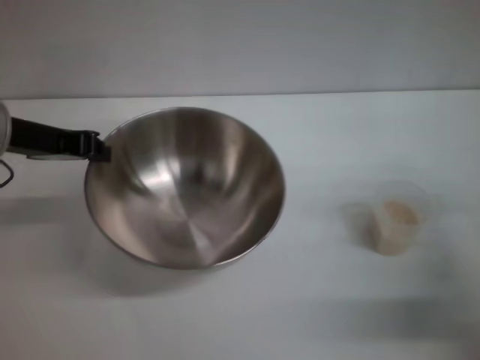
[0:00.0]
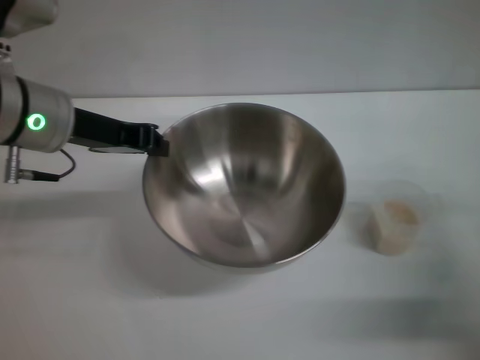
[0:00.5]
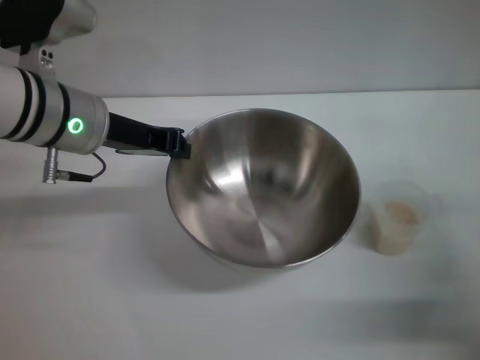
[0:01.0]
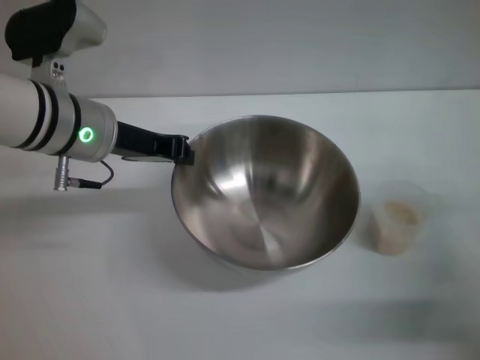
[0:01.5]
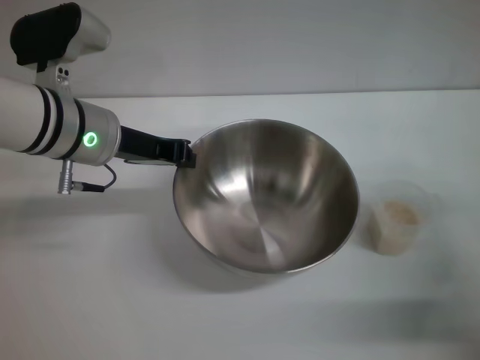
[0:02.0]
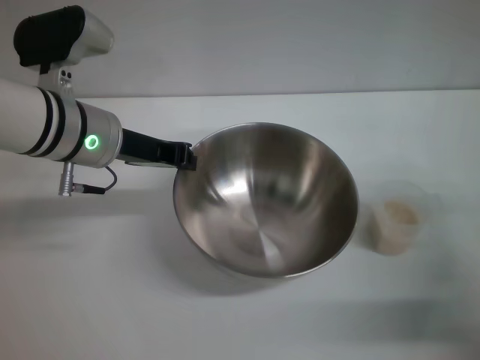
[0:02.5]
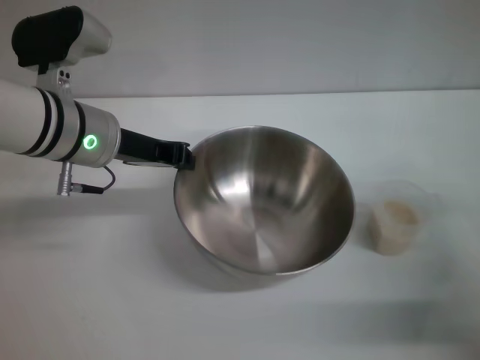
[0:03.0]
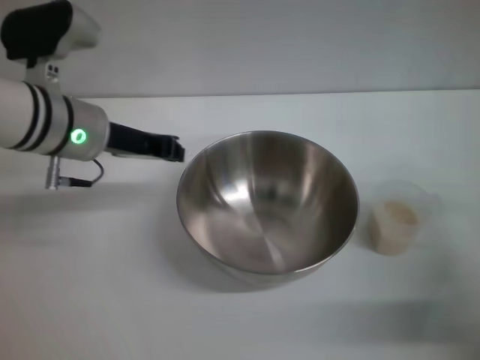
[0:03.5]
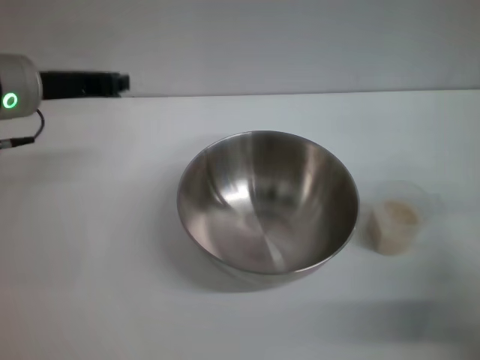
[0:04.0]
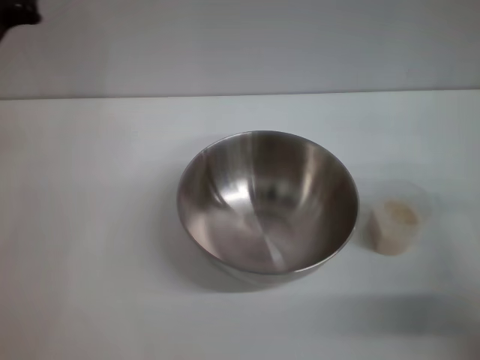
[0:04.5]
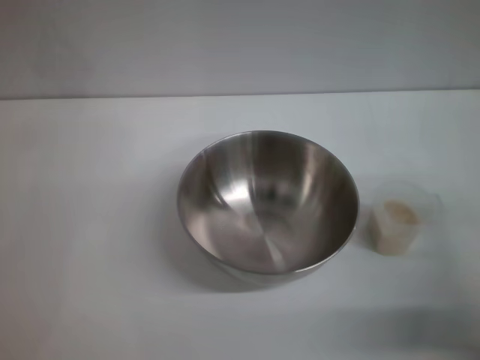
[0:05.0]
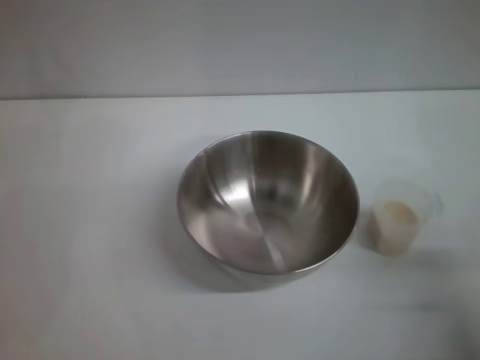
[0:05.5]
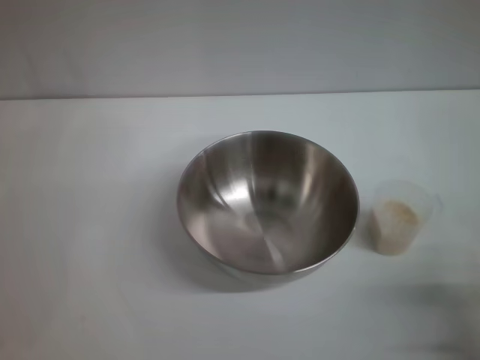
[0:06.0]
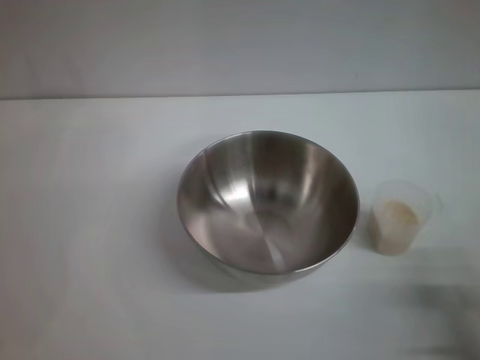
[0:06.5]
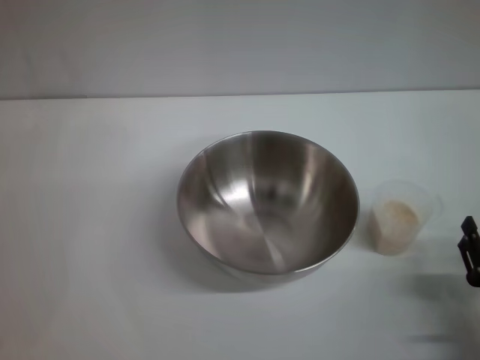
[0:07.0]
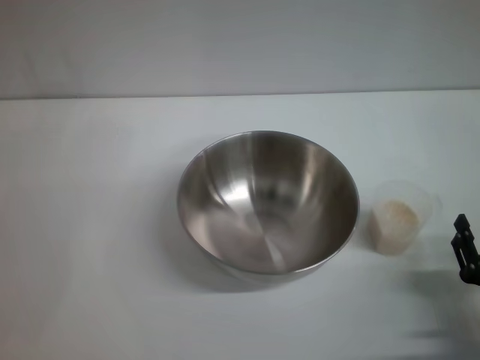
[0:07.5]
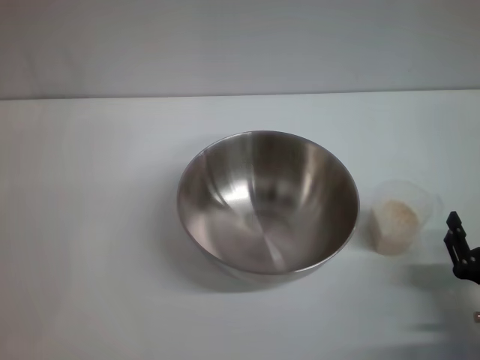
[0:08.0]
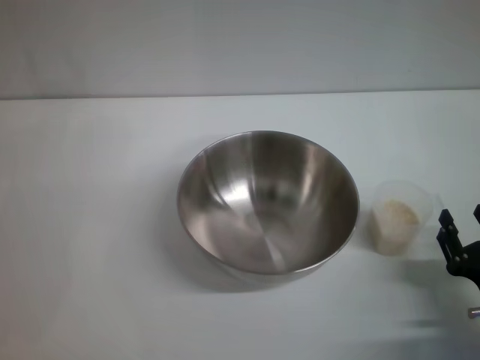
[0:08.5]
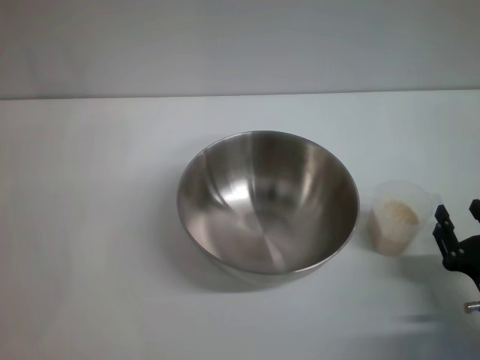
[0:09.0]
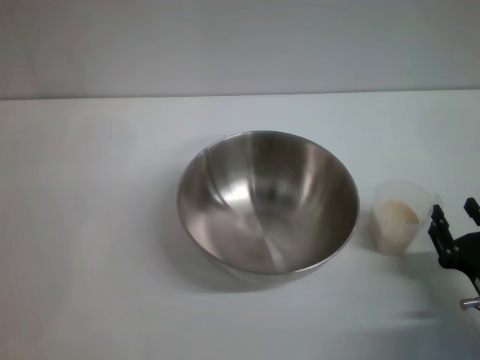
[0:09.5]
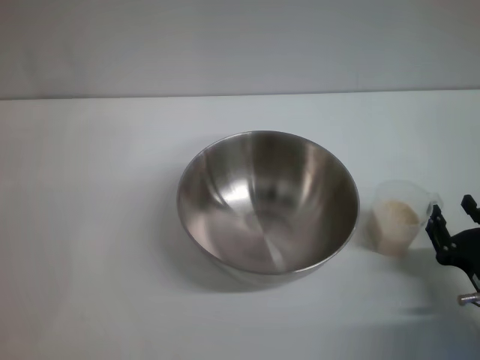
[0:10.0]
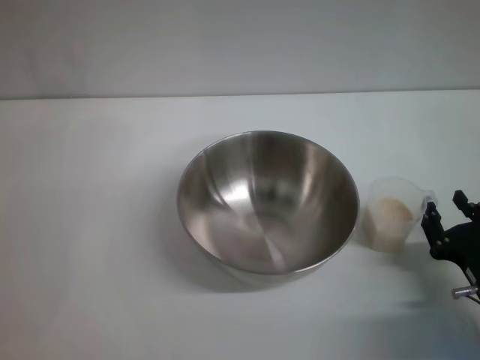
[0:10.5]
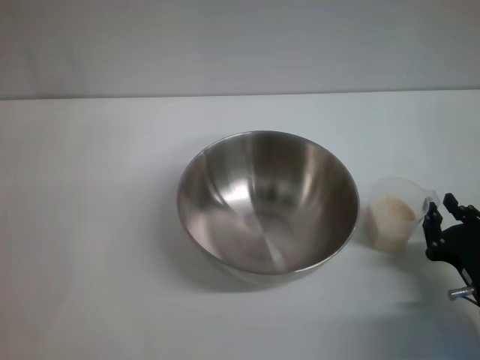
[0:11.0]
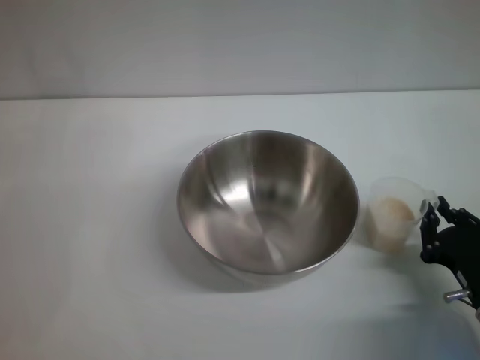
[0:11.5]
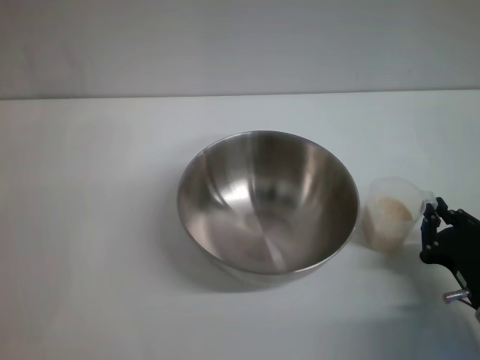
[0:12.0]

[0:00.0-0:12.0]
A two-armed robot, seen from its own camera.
Task of the whole recording: Place the bowl in the middle of the table with one hand and pour the rice from the grain cup into it with the other hand.
Step, 0:00.5 to 0:03.5: Place the bowl in the center of view with the left gripper.
0:00.0 to 0:02.0: The left gripper shifts some 10 cm to the right.
0:02.0 to 0:04.0: The left gripper heads to the left, covering approximately 5 cm.
0:04.0 to 0:06.0: The left gripper travels downward, backward and to the left by about 15 cm, and opens its fingers.
0:06.0 to 0:08.0: The right gripper changes place by about 5 cm.
0:08.0 to 0:10.0: The grippers make only small movements.
0:10.0 to 0:12.0: The right gripper closes.

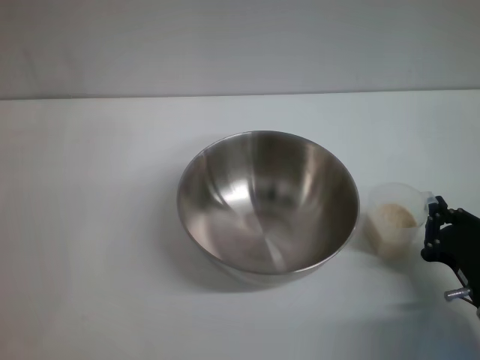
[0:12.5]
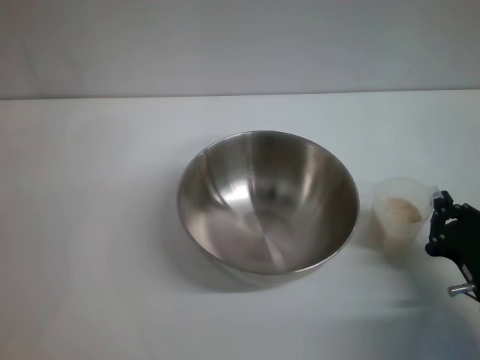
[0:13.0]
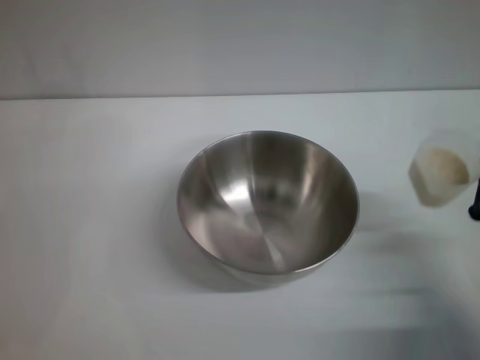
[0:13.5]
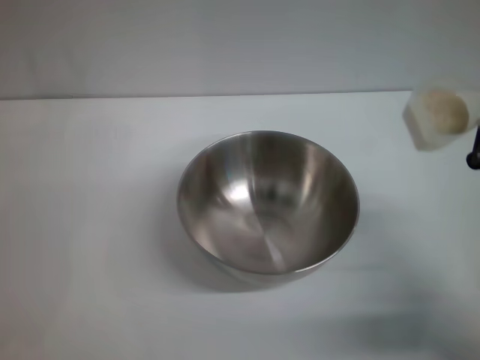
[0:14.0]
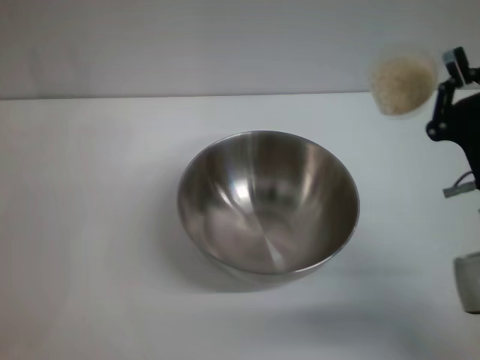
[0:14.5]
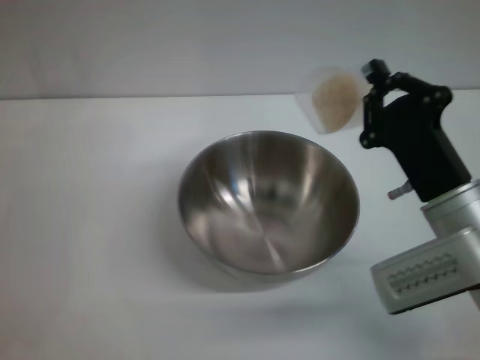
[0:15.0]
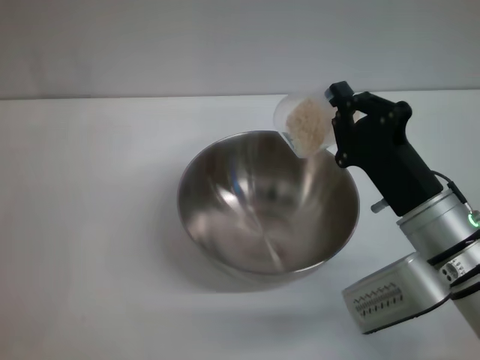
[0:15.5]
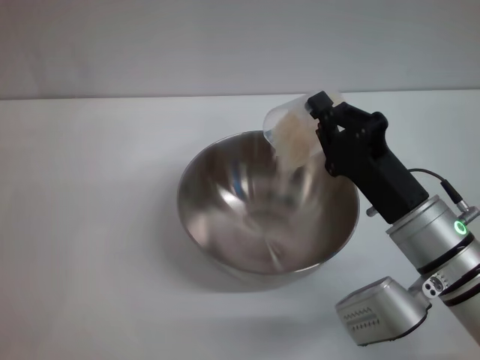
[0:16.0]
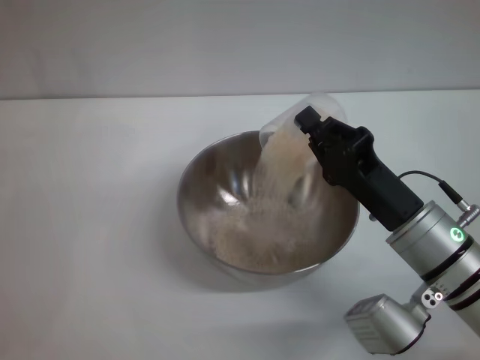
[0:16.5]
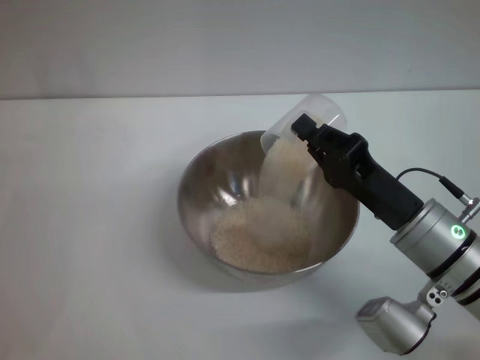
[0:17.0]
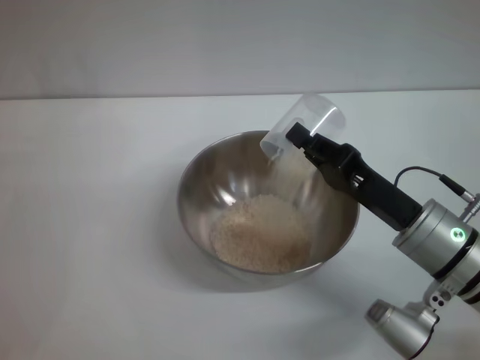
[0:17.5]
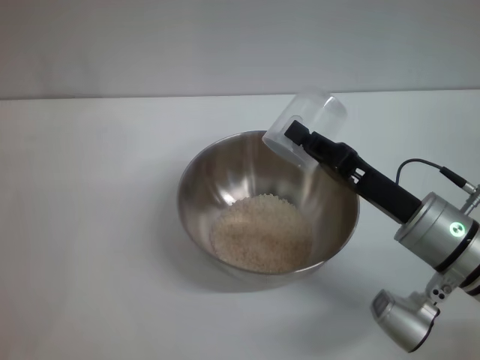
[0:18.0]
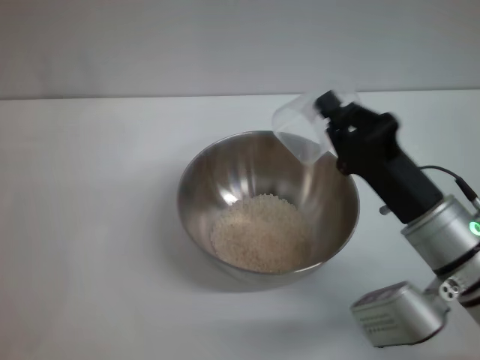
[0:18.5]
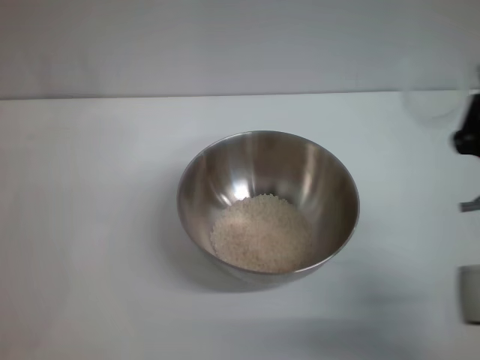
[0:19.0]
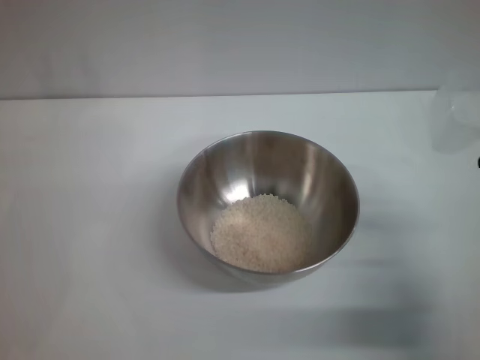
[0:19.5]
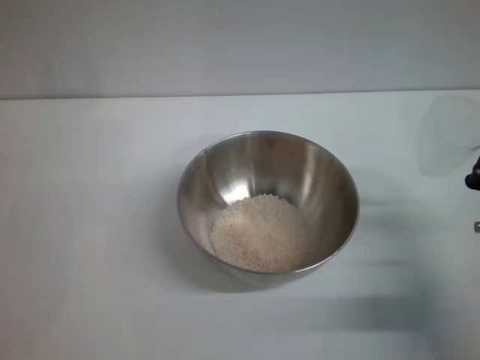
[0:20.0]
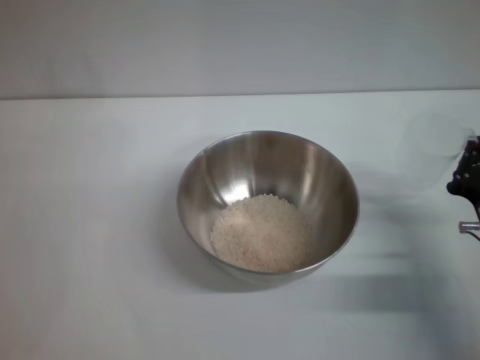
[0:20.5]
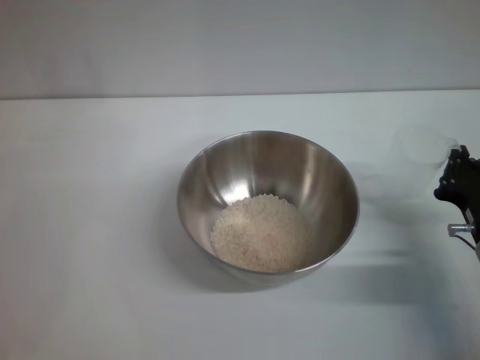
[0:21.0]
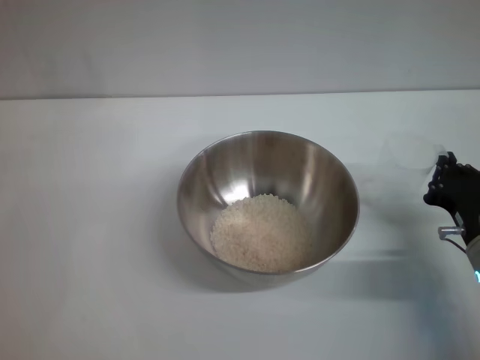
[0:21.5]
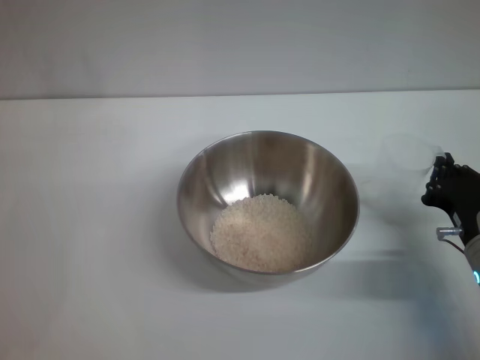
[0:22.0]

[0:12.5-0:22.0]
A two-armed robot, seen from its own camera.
Task of the whole recording: Place the bowl in the middle of the table with one hand and pour the rice from the grain cup into it with the other hand.
Step, 0:14.5 to 0:18.0: Pour the rice from the cup into the bowl with the right gripper.
0:12.5 to 0:14.5: The right gripper heads upward and forward, covering approximately 10 cm.
0:14.5 to 0:16.5: The right gripper moves to the left, roughly 5 cm.
0:18.0 to 0:20.0: The right gripper travels to the right by some 5 cm.
0:20.0 to 0:22.0: The grippers stay close to where they were, moving slightly.

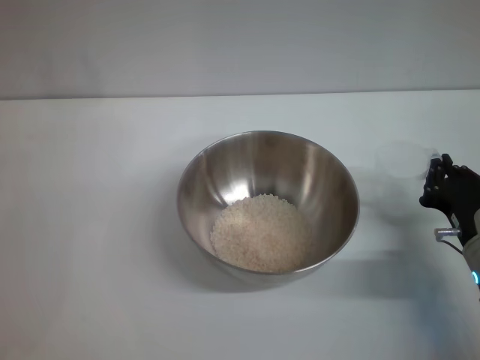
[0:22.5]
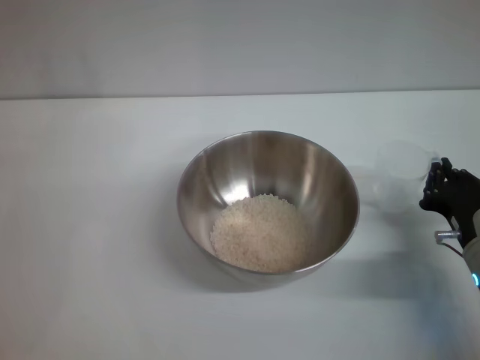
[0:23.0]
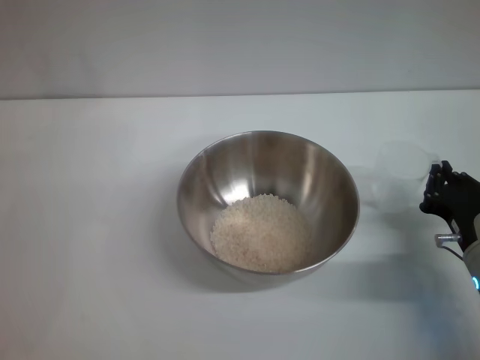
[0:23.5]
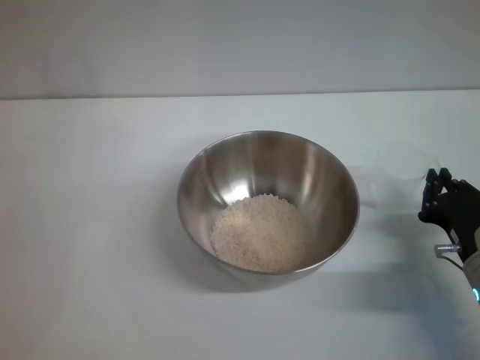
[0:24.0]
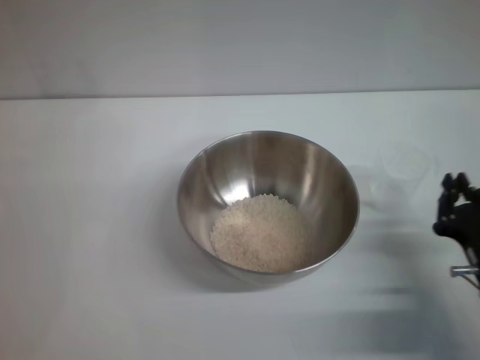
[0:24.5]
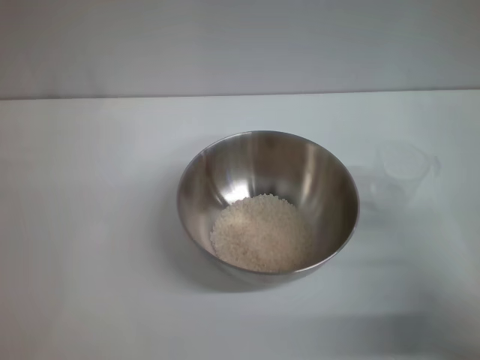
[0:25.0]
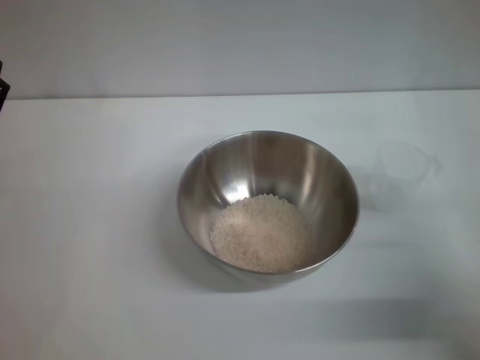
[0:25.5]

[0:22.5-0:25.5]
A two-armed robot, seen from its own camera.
Task of the whole recording: Place the bowl in the middle of the table with one hand and pour the rice from the grain cup into it with the other hand.
0:22.5 to 0:24.0: The grippers make only small movements.
0:24.0 to 0:25.5: The right gripper is displaced upward by about 10 cm, and opens.

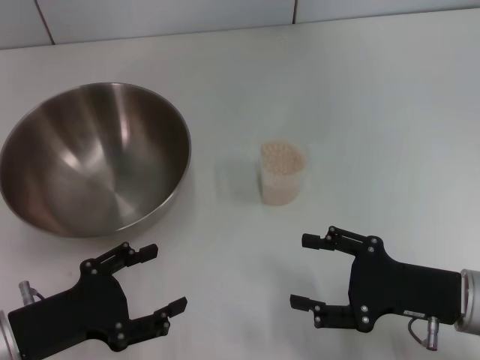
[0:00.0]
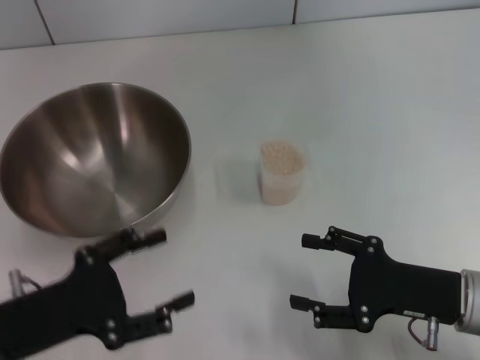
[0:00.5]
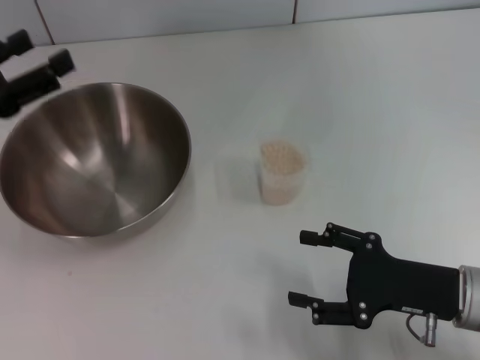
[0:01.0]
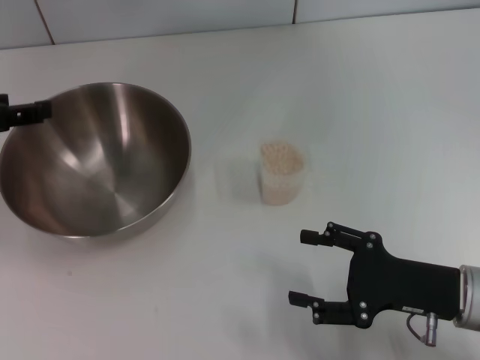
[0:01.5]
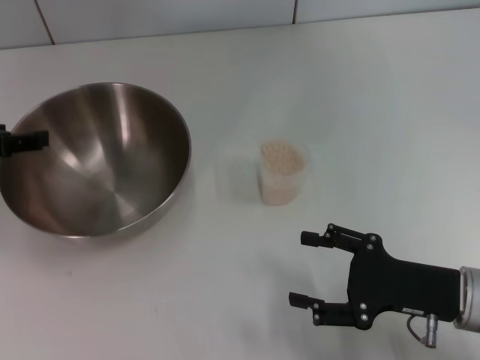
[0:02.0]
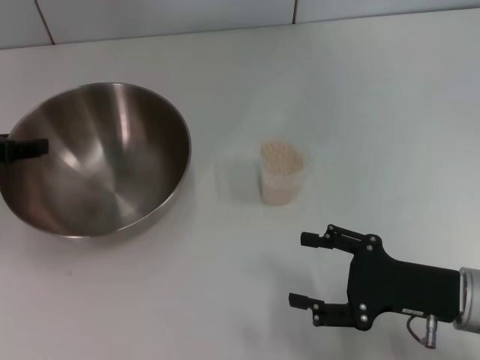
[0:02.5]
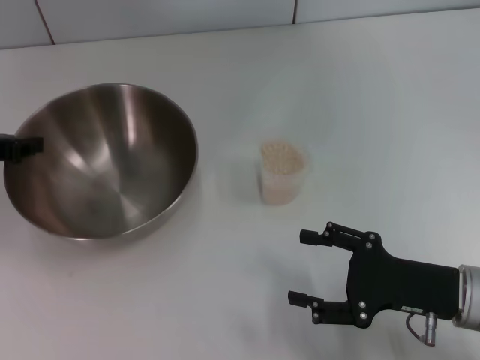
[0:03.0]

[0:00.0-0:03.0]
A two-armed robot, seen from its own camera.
Task of the whole recording: Place the bowl in the middle of the table with one hand and pour the rice from the grain cup into it with the other hand.
0:00.0 to 0:01.5: The left gripper travels forward and upward by some 20 cm.
0:01.5 to 0:03.0: The left gripper closes its fingers.
